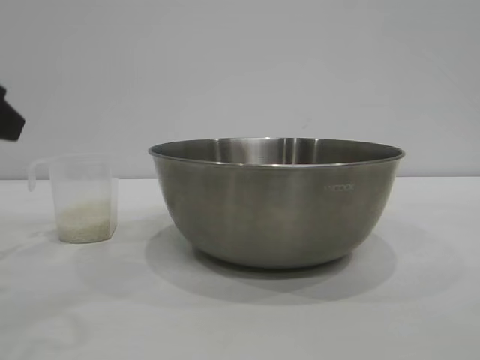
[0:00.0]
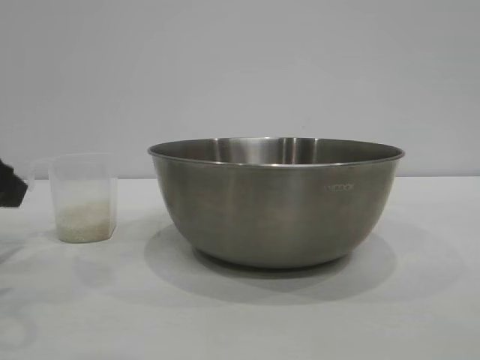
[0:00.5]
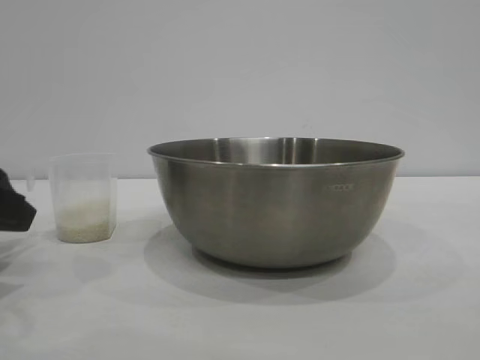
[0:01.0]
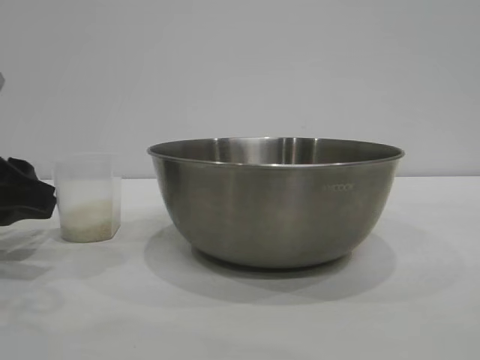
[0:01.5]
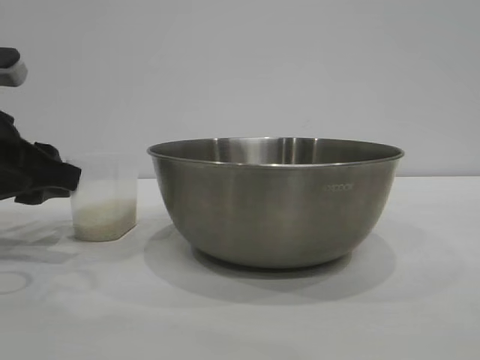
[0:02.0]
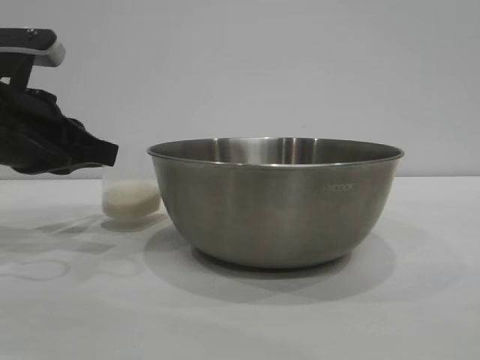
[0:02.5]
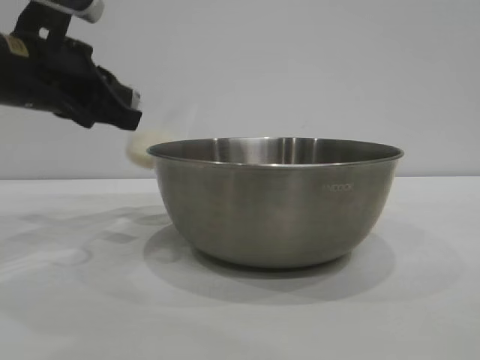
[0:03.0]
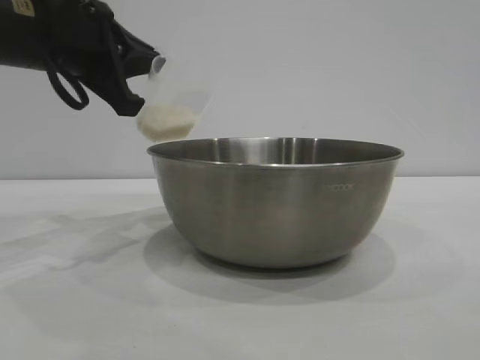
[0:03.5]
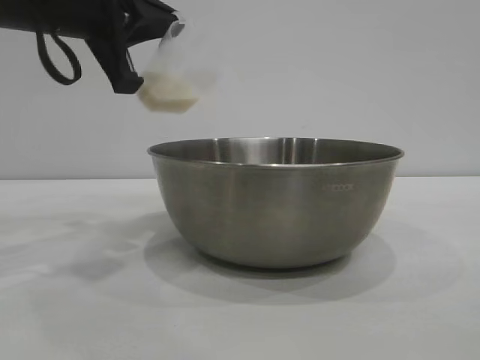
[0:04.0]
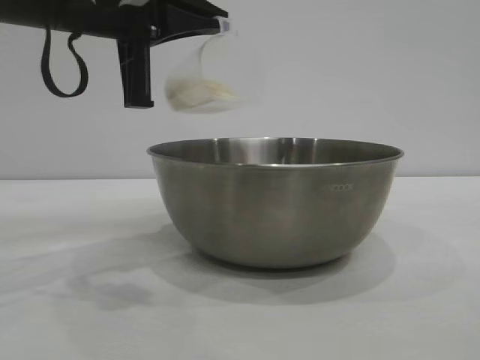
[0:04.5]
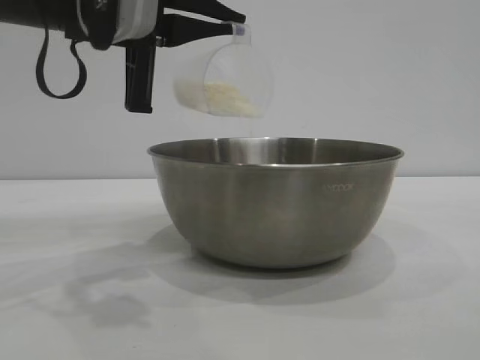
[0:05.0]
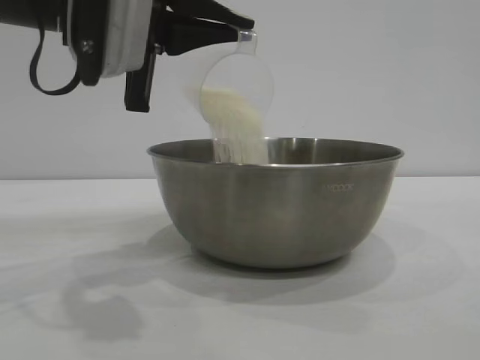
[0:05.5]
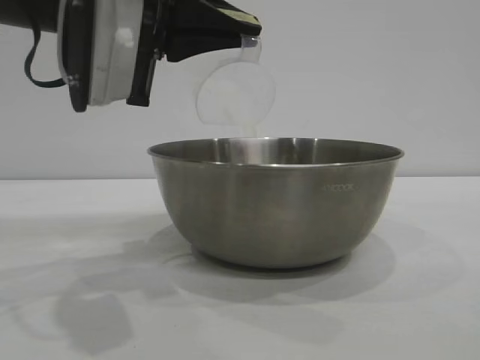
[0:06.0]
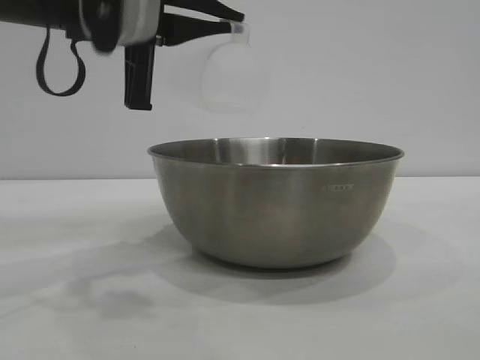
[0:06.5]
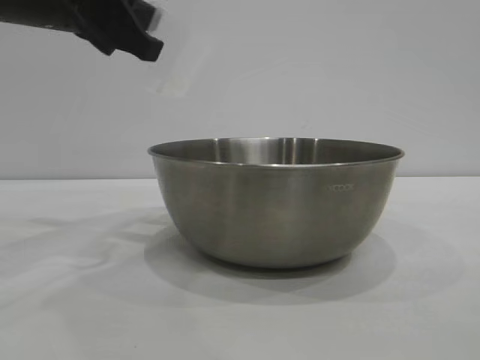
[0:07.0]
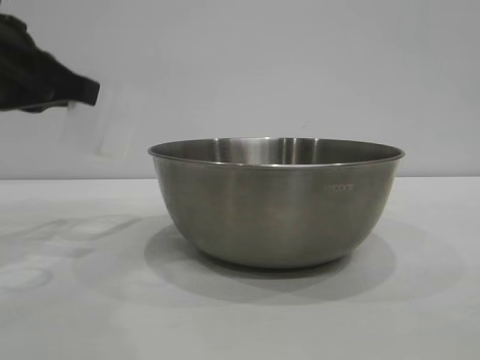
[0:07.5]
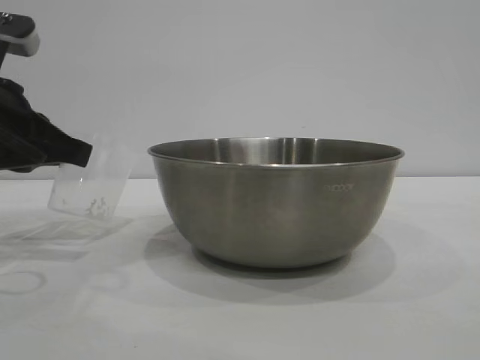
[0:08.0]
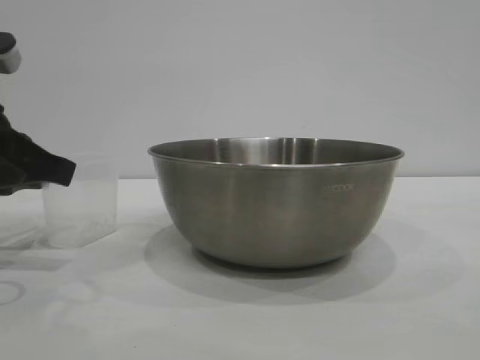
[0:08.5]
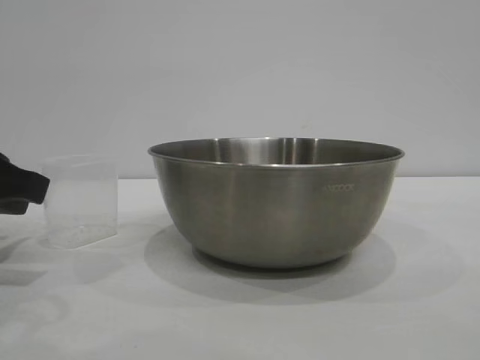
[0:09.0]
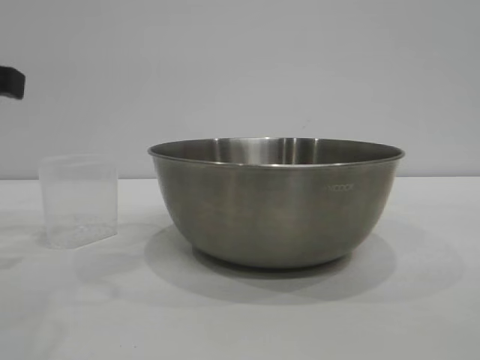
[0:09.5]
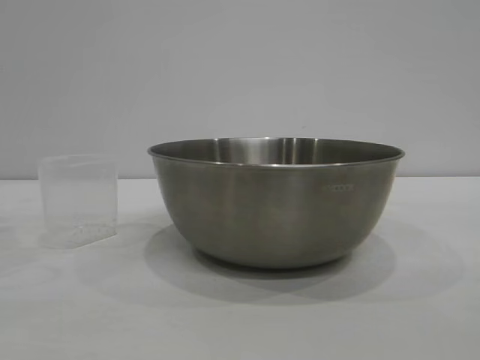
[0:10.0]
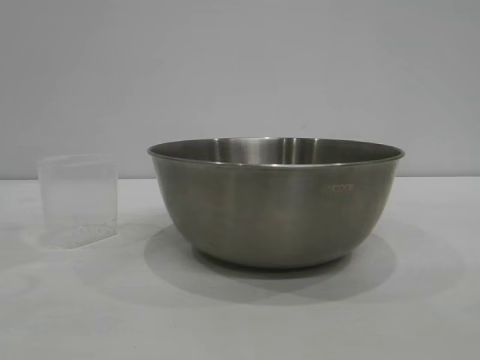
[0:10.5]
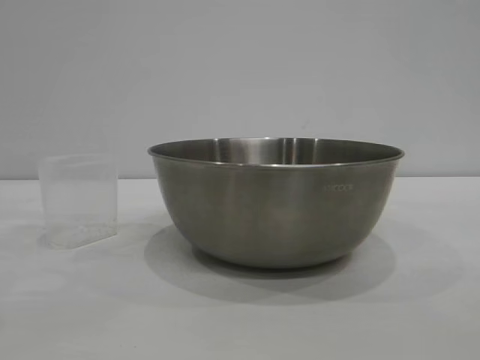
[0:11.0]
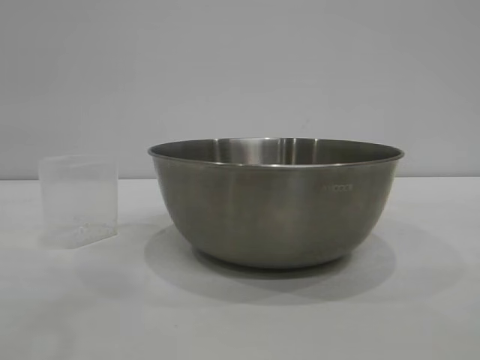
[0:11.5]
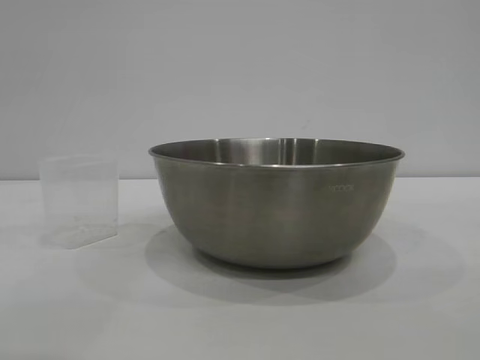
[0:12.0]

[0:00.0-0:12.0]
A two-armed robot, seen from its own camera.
Task of the whole recording: the right gripper grasp the rice container and place it in the center of the table, the left gripper grasp the rice scoop and pour the rice into the rice container.
Step, 0:00.0 to 0:02.5: Pick up the cup with rice in it with the left gripper.
Step, 0:03.0 to 0:06.5: Pour the rice from the cup into the bowl with the left gripper.
Step, 0:07.0 to 0:09.0: Place the cup on the table with the left gripper.
